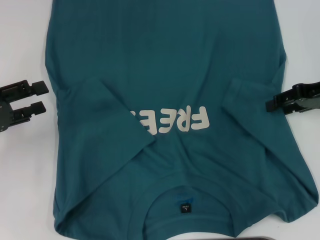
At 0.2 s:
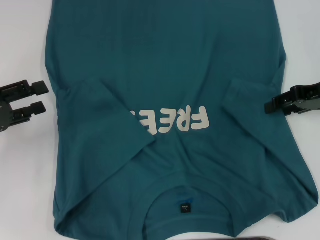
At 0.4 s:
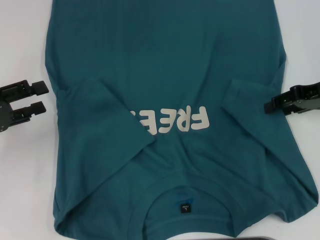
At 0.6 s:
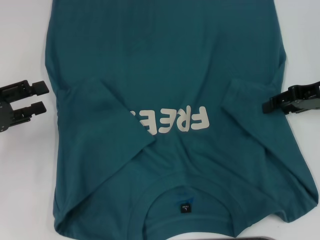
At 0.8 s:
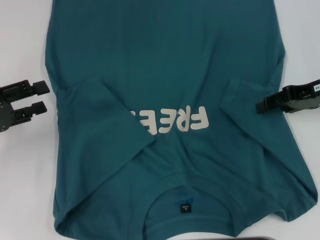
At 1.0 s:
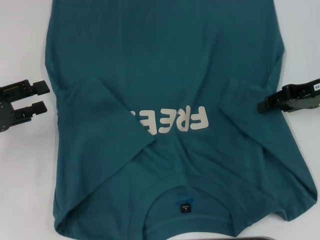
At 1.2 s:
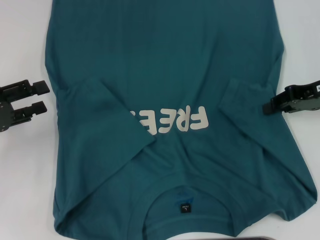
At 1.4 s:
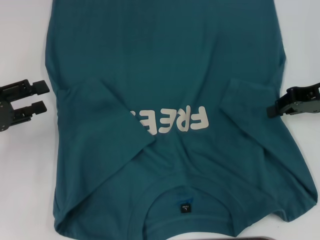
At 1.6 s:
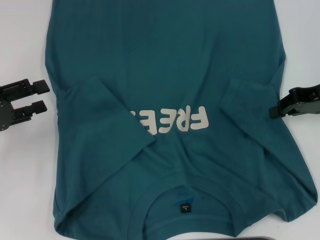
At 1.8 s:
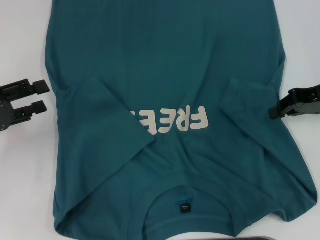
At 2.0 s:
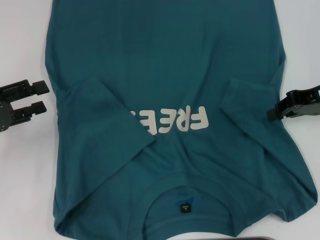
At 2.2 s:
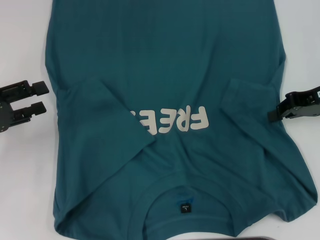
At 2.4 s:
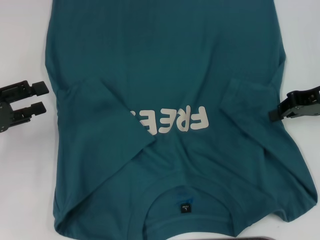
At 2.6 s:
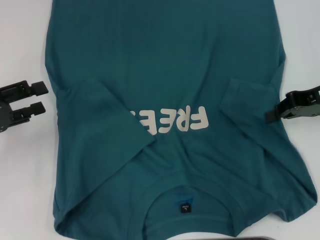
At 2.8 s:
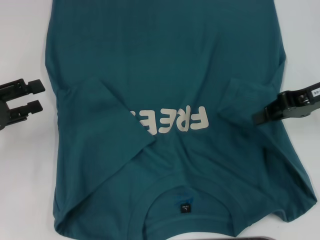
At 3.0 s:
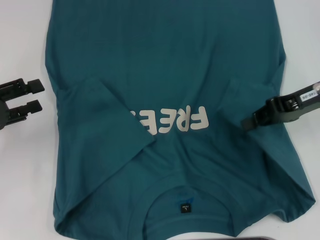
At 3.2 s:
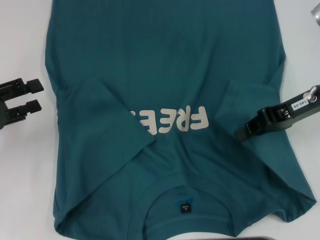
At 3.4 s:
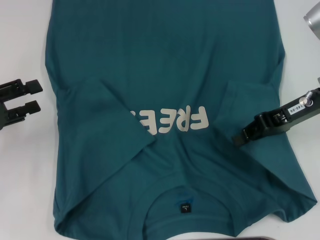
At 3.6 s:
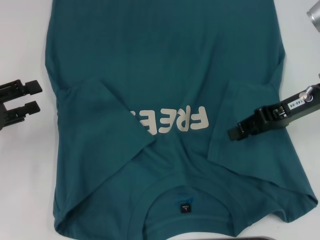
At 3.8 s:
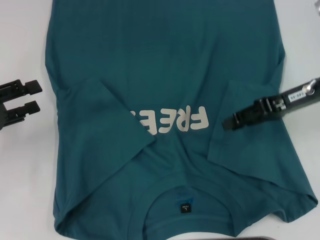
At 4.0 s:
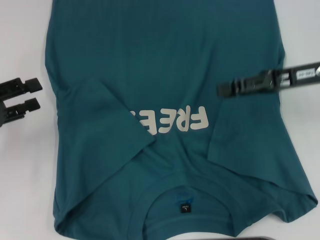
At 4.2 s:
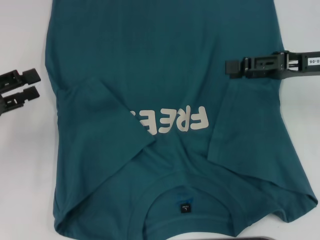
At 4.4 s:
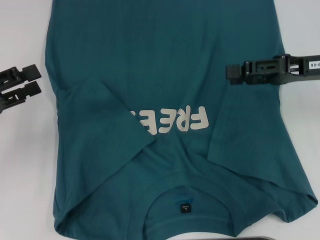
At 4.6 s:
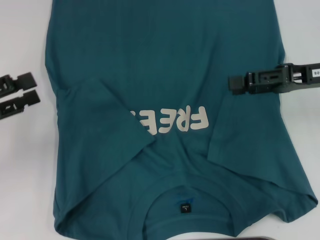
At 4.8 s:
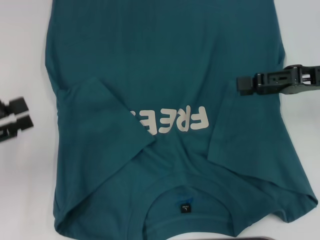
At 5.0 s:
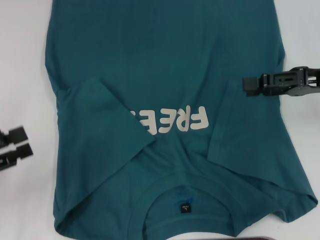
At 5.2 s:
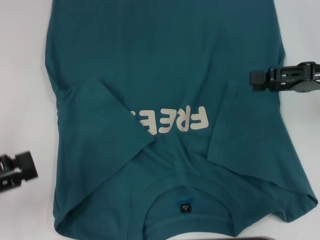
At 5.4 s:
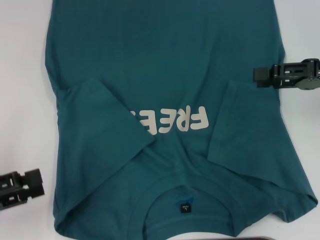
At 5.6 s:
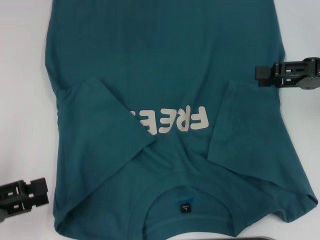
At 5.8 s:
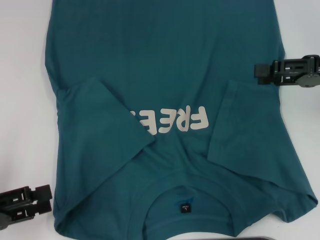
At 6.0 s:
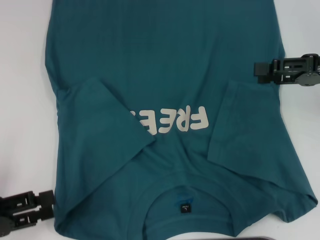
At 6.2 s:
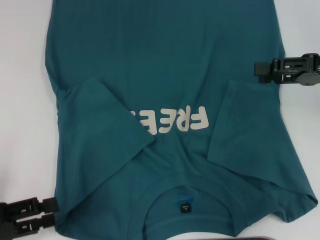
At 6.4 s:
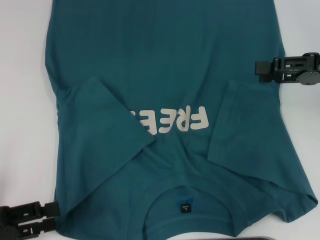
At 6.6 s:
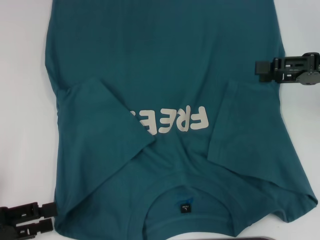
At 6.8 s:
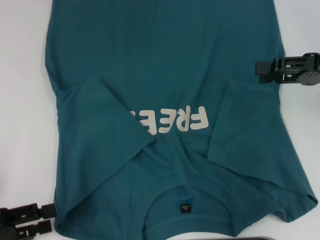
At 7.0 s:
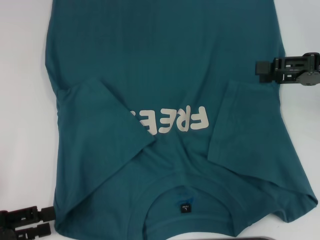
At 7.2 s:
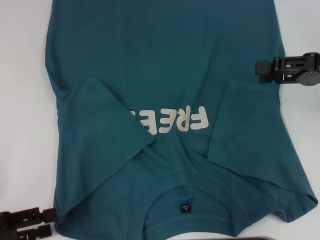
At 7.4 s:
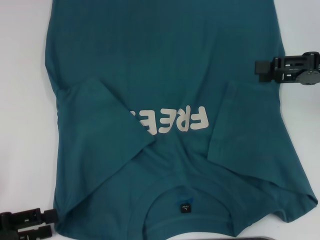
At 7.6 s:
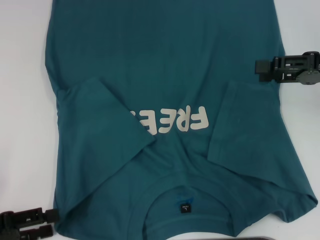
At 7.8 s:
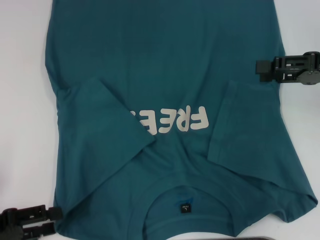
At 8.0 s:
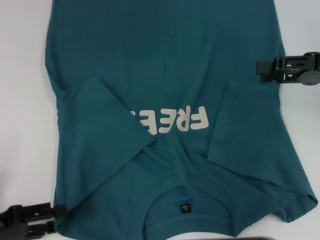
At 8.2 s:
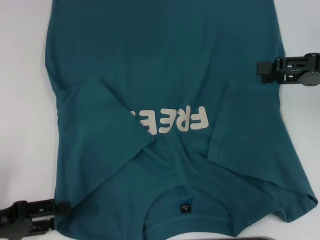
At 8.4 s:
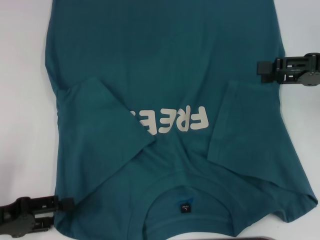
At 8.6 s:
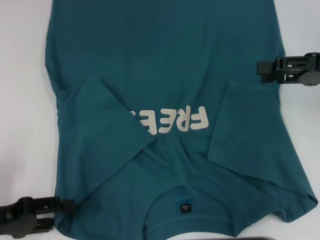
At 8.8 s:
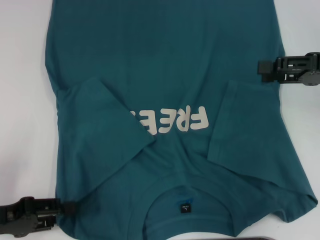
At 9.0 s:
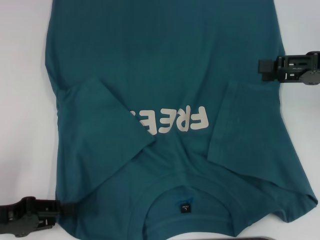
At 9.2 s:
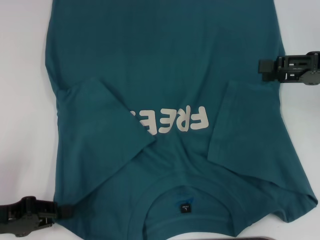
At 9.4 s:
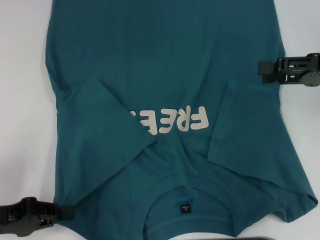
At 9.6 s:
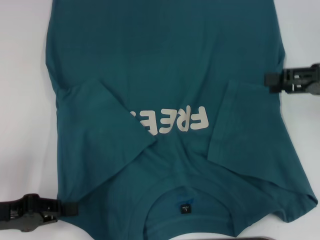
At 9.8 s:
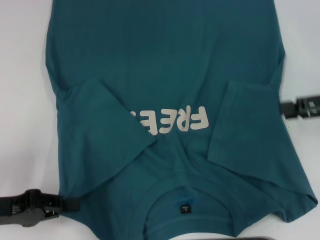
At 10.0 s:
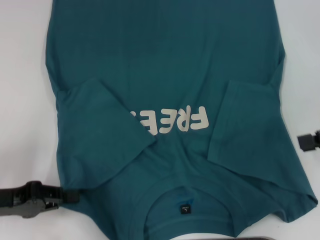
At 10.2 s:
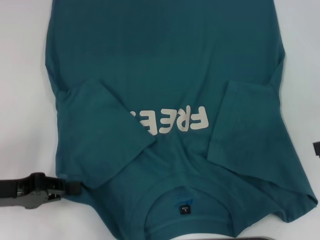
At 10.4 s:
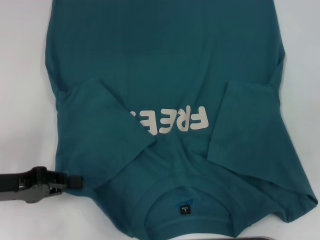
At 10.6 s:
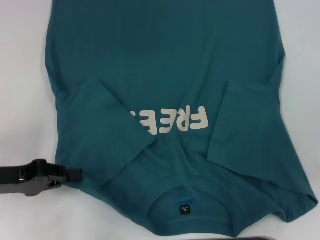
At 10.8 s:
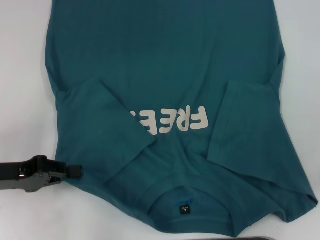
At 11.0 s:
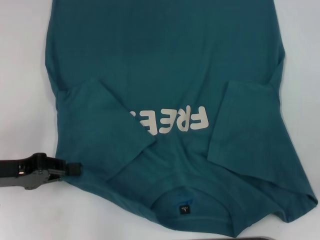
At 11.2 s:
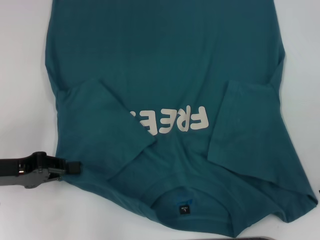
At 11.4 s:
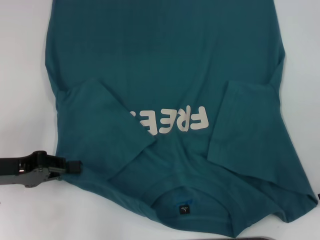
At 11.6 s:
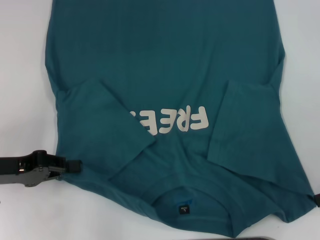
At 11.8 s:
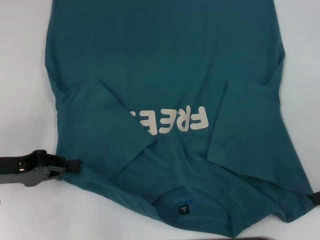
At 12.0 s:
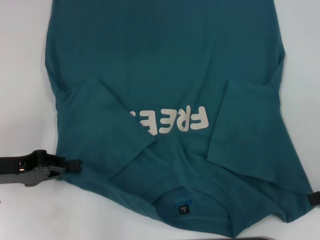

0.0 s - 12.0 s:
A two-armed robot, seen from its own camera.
Step, 0.0 s - 9.8 s: Grab the bottom left corner with your left hand.
0.0 s - 1.6 s: The right gripper closes up.
1.6 s - 3.0 s: The grippers stay close to where they were, moving slightly.
3.0 s - 4.4 s: The right gripper opens its fingers.
4.4 s - 6.0 s: The left gripper heads backward, covering approximately 10 cm.
6.0 s - 9.0 s: The grippers stay close to where they were, moving slightly.
9.0 s - 10.4 s: The right gripper shifts about 10 cm backward and to the right, while the left gripper closes.
10.4 s - 12.0 s: The grippers stay close to where they were, moving slightly.

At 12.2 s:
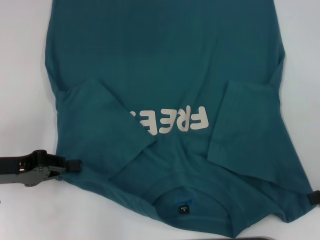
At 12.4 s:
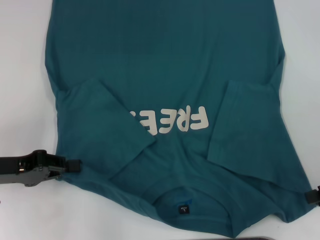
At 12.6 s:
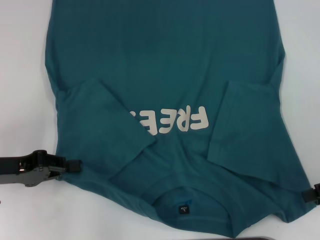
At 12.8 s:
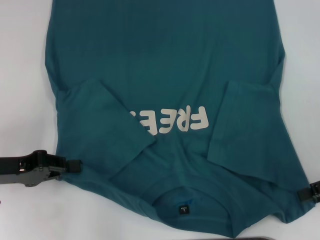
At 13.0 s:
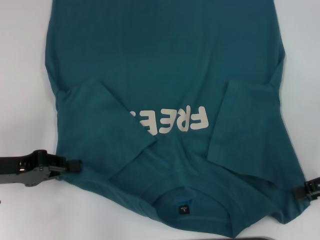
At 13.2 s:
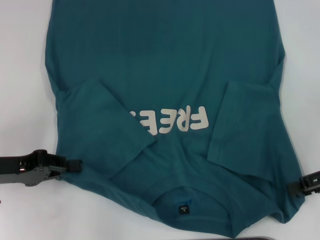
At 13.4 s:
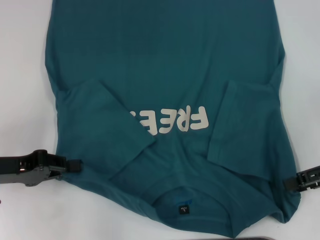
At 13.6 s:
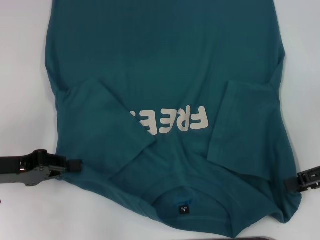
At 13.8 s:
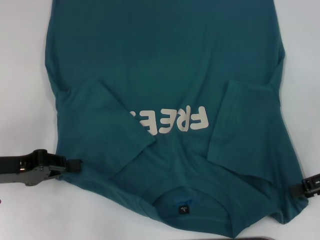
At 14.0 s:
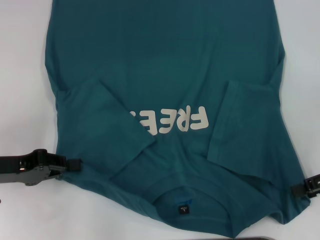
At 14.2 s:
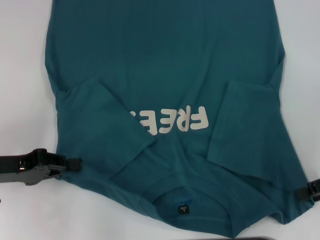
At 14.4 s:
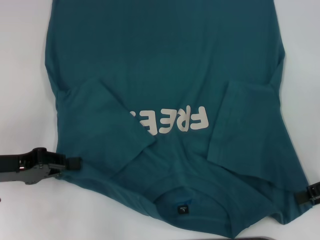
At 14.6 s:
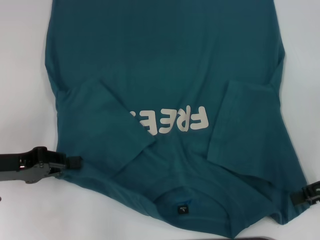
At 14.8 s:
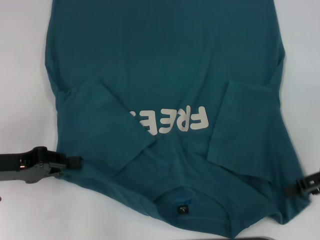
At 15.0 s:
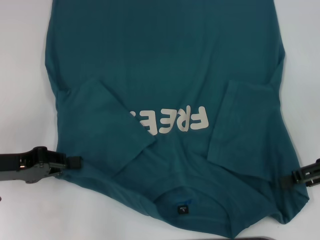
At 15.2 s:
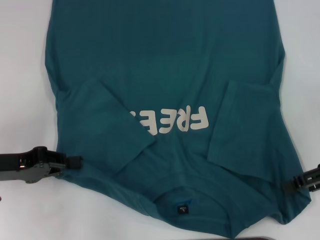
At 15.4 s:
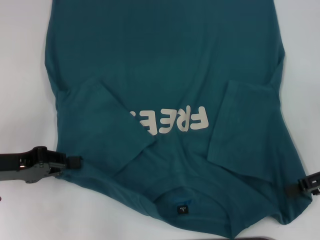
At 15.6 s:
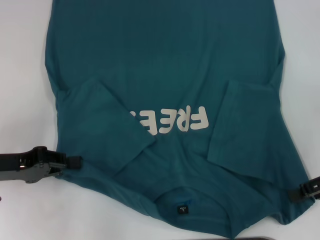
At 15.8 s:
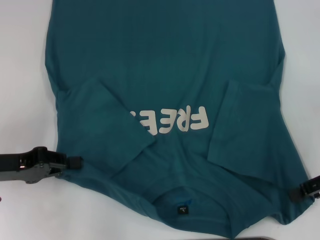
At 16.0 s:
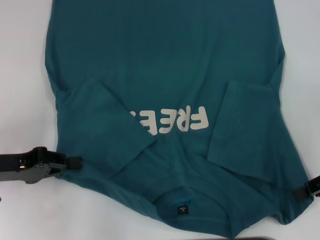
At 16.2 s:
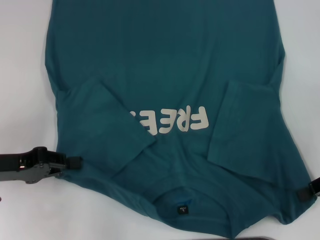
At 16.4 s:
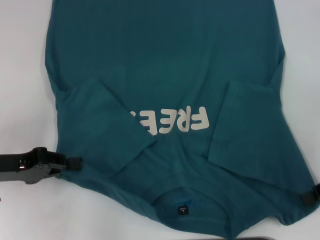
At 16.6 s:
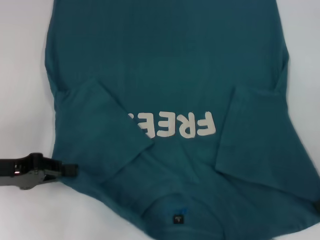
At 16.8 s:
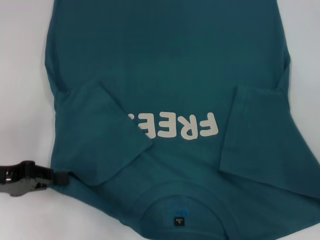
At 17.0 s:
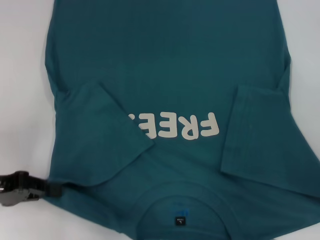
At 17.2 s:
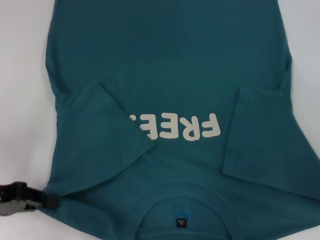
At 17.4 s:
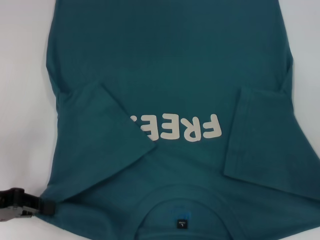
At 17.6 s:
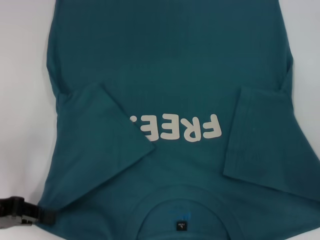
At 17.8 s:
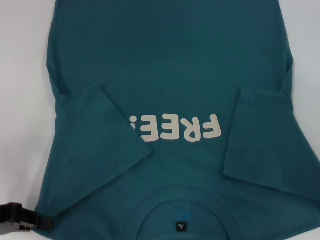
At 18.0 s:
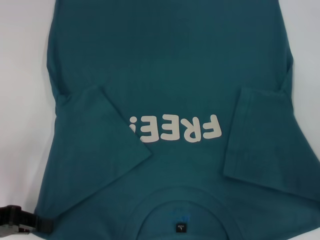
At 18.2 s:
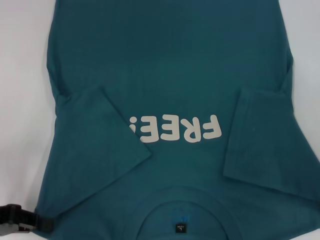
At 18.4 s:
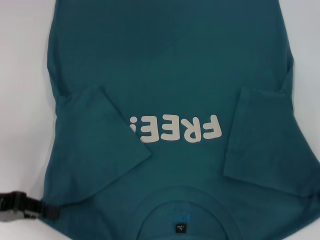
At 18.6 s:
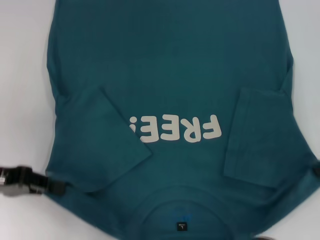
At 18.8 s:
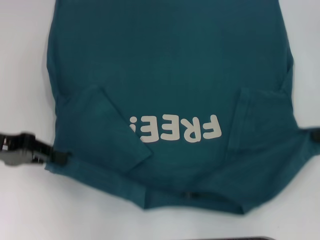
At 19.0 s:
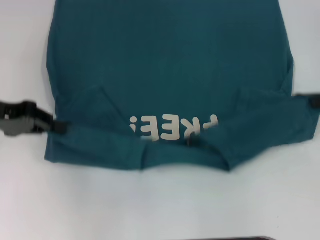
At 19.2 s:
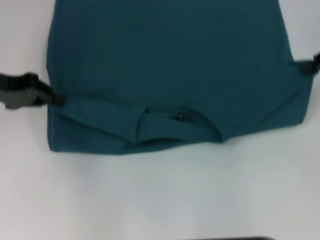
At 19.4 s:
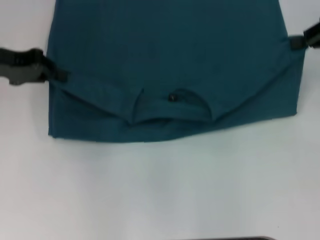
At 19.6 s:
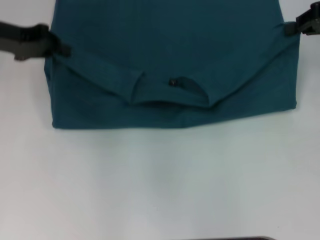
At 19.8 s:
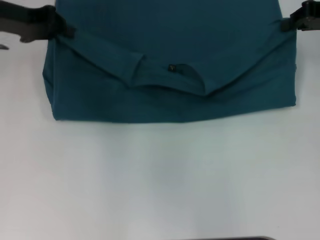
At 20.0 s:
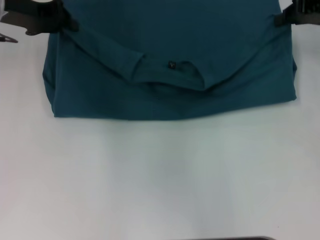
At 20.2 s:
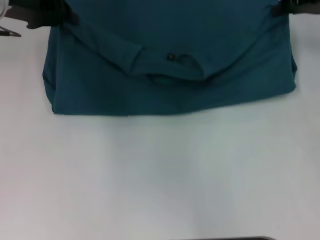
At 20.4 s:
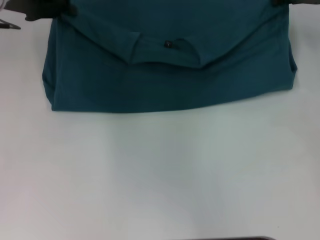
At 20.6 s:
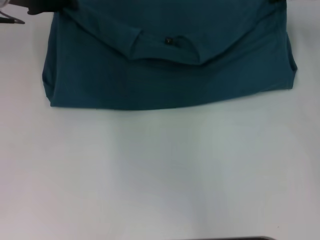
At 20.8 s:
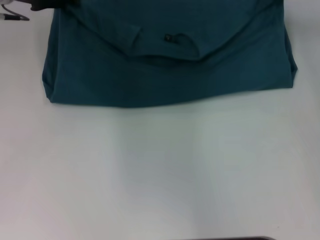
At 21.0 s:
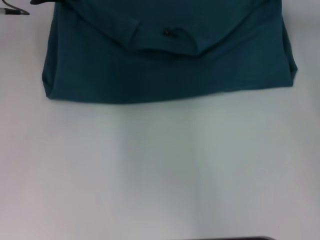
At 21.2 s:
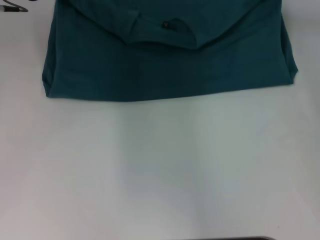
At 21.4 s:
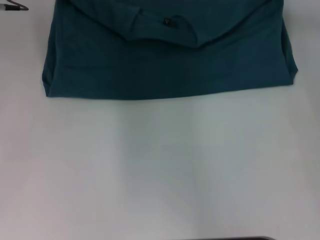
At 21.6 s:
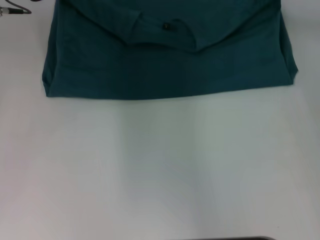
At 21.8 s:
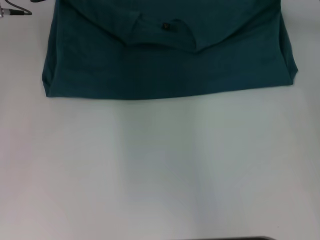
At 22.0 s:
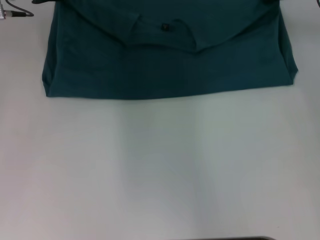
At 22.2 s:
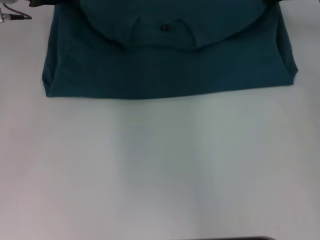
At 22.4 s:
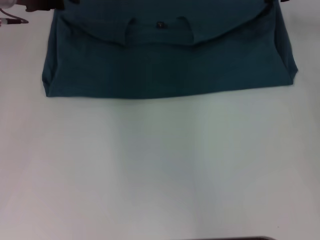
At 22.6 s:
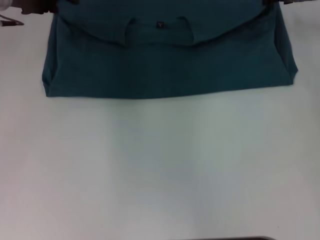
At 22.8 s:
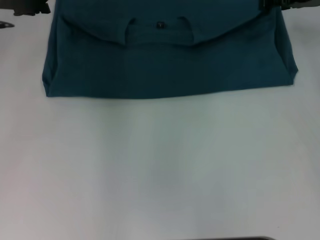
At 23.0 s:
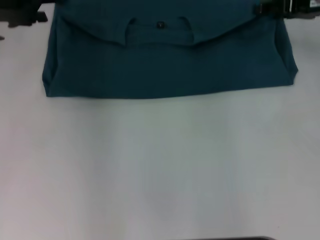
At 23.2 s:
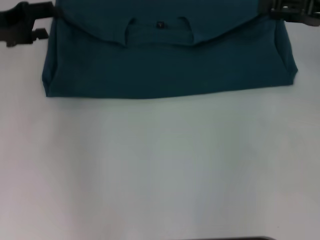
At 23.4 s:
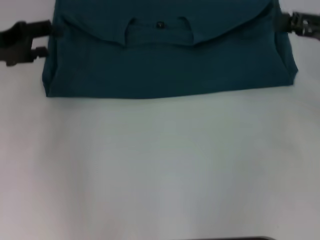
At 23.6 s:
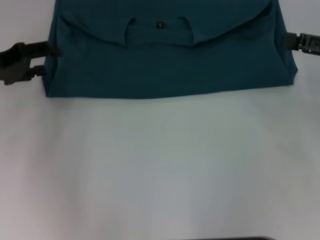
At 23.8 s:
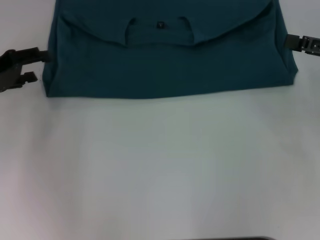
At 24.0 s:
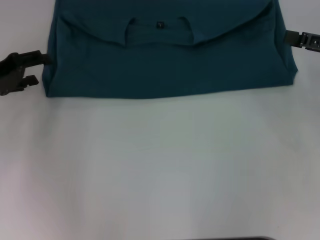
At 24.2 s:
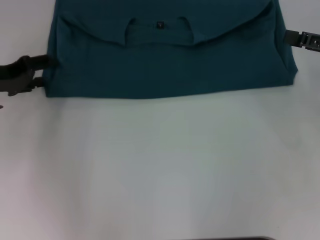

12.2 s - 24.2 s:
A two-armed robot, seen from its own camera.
Step, 12.2 s - 16.2 s: Grab the bottom right corner with your right hand.
Step, 16.4 s - 22.6 s: Fold the clothes to the left.
Step, 16.4 s - 22.6 s: Fold the clothes to the right.
12.2 s - 13.8 s: The grippers stay close to where they were, moving slightly.
13.8 s - 15.2 s: Both grippers stay about where they are.
15.2 s - 16.6 s: The right gripper closes.
16.6 s - 18.2 s: The grippers make only small movements.
18.2 s - 19.8 s: The two grippers go about 20 cm forward and upward.
19.8 s - 21.2 s: The left gripper changes place by about 5 cm. Meanwhile the right gripper is displaced forward and to the left by some 10 cm.
21.2 s - 22.6 s: The right gripper opens. Meanwhile the left gripper opens its fingers.
22.6 s - 24.2 s: The right gripper is displaced backward and to the right by approximately 15 cm. The left gripper is displaced backward, downward and to the left by roughly 15 cm, and opens.
